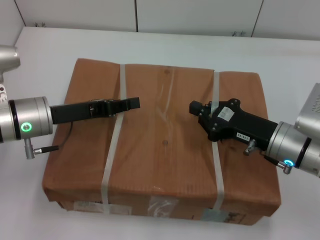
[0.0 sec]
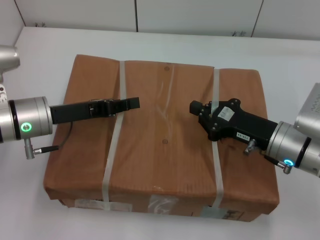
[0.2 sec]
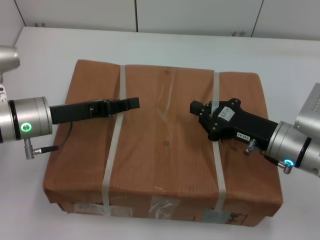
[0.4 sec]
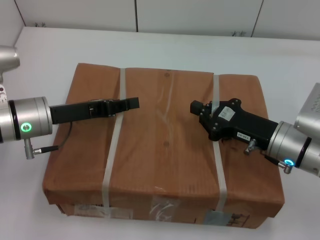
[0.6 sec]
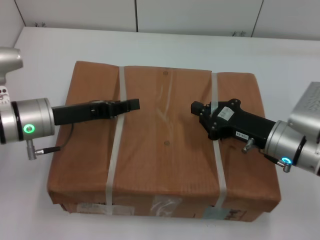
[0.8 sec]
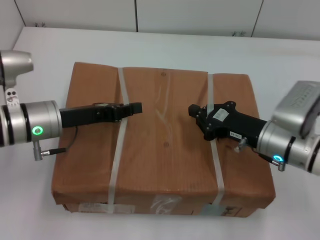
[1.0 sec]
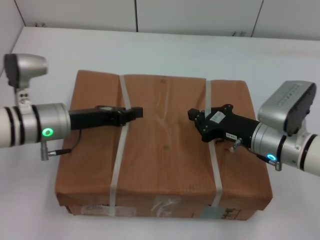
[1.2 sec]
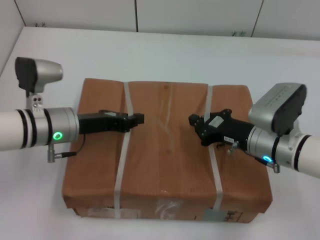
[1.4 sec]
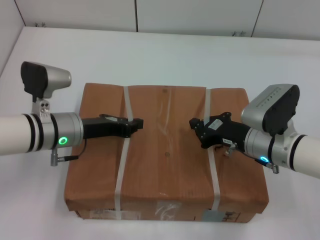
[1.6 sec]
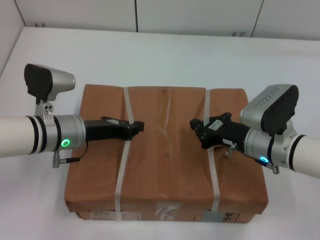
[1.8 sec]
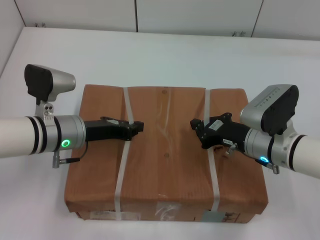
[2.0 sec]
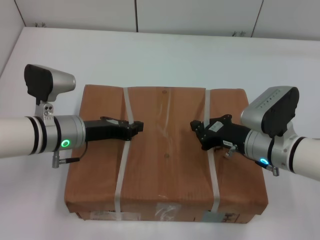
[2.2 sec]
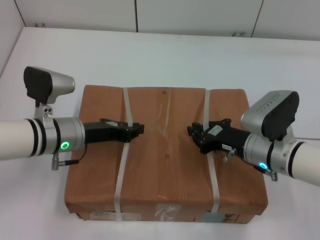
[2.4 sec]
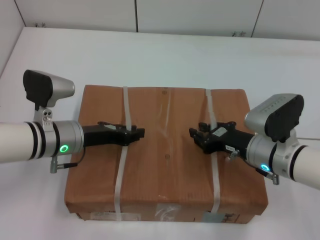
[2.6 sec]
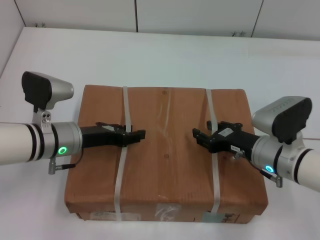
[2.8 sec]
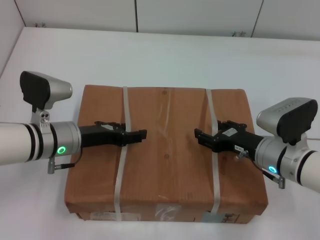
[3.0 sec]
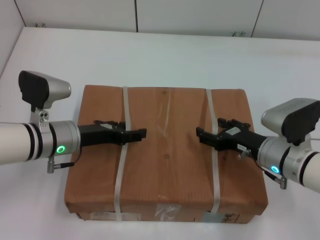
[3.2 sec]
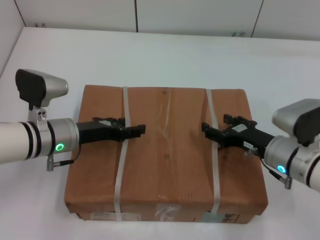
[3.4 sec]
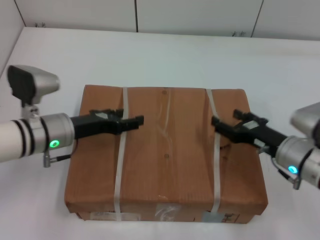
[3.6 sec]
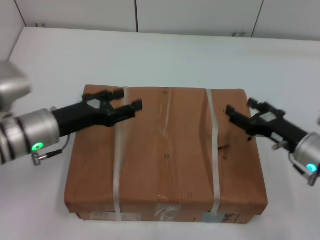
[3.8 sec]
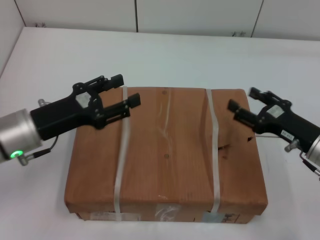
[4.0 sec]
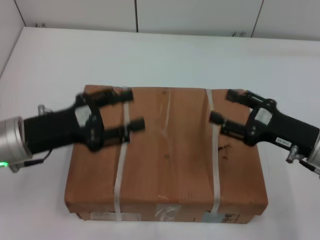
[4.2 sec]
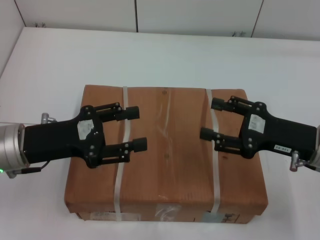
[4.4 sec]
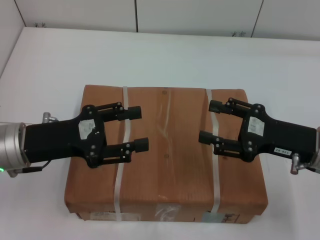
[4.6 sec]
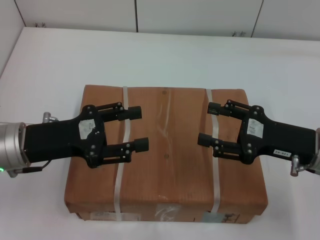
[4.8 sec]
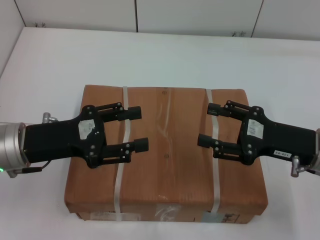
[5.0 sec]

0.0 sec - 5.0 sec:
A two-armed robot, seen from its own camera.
Task of the whole recording: place the box on the table with both arms.
Step, 0.0 sec - 1.6 sec: Place the box on the table with left gripper.
Step, 0.0 sec - 1.6 sec: Place the box on the table with right gripper.
Step, 1.8 sec - 2.6 sec: Loosen the box on the table with left gripper.
Step, 1.8 sec - 2.6 sec: Loosen the box on the table with right gripper.
0.0 sec - 1.6 sec: The left gripper moves roughly 5 cm.
1.6 sec - 3.4 sec: The right gripper opens up; the left gripper opens.
3.4 sec - 5.0 sec: The right gripper heads upward, covering roughly 10 cm, while the left gripper heads upward and backward, covering approximately 10 cm.

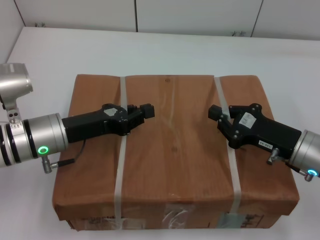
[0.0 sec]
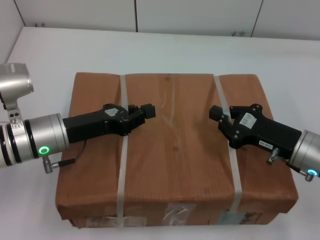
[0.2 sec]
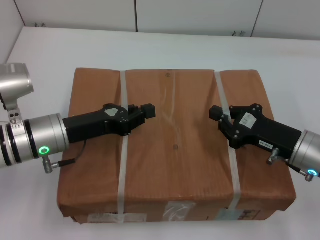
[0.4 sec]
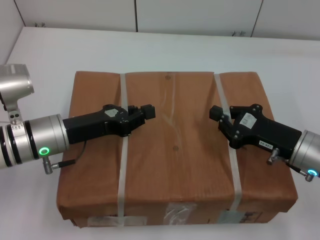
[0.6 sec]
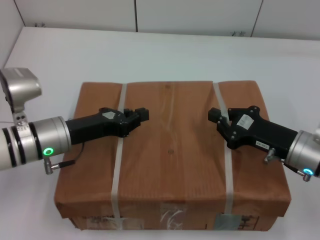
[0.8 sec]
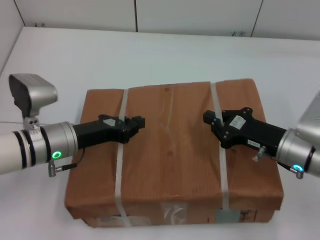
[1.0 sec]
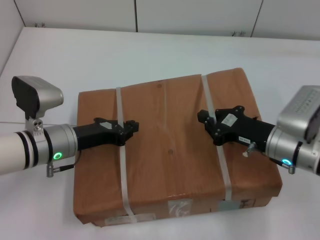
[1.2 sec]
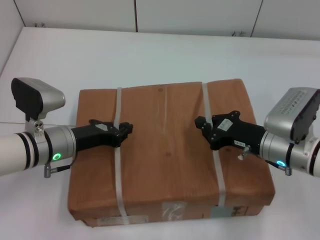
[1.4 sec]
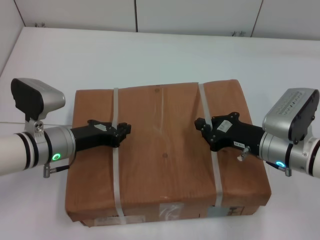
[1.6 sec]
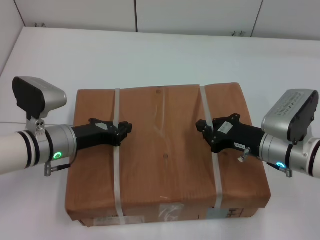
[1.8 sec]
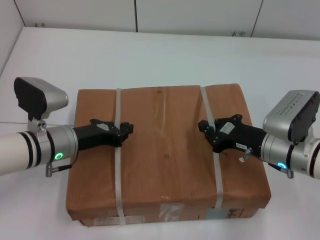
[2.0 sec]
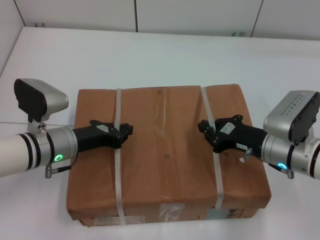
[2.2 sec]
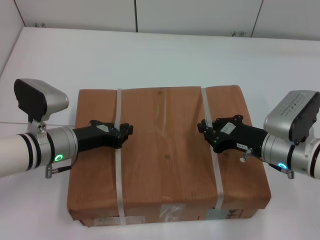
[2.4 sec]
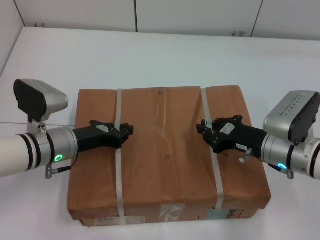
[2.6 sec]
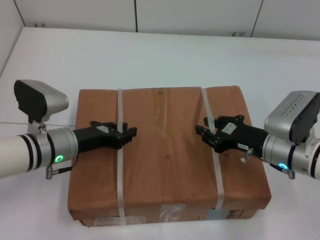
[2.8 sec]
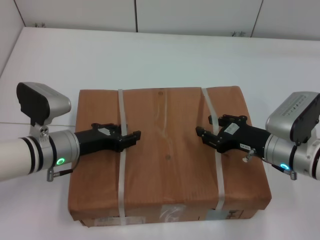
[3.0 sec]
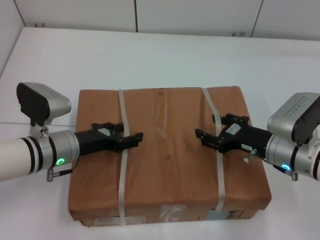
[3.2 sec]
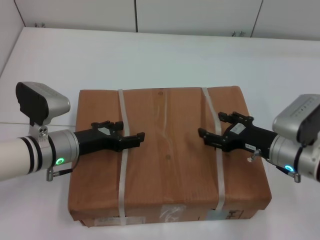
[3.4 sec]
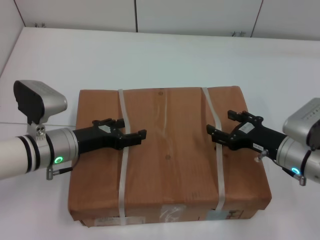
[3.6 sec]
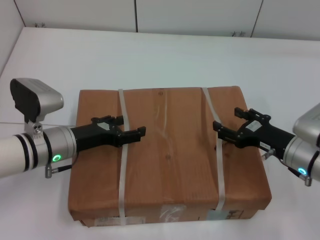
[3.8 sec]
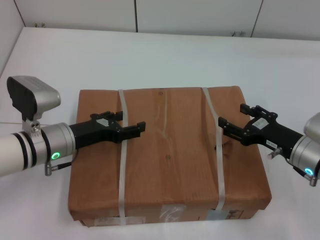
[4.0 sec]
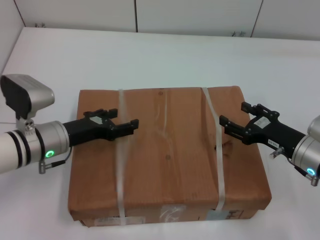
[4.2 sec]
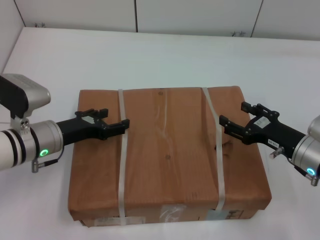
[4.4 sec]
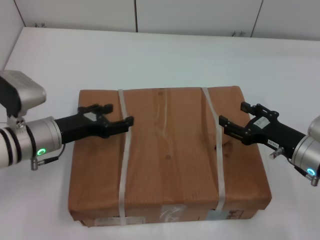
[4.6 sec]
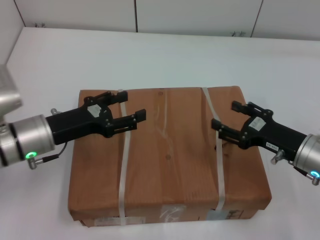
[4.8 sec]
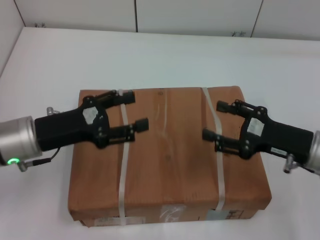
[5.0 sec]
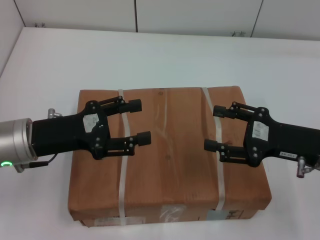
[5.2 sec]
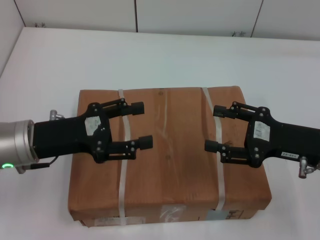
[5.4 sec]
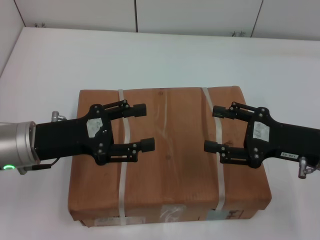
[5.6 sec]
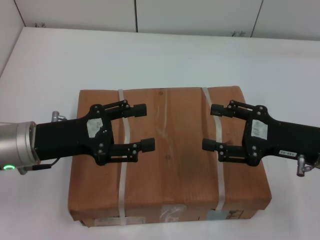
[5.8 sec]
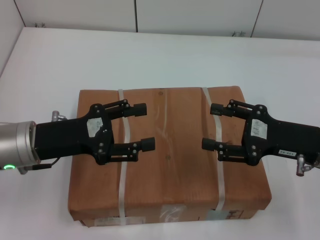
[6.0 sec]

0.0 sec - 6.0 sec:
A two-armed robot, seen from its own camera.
Task of the whole recording: place the box on the table with both arms.
Step, 0.0 sec - 1.8 sec: Place the box on the table with left gripper.
Step, 0.0 sec - 1.8 sec: Place the box on the table with right gripper.
Step, 2.0 sec - 4.2 sec: Loosen the box on the table with left gripper.
Step, 2.0 sec - 4.2 sec: Loosen the box on the table with right gripper.
1.6 sec - 3.0 sec: The left gripper opens.
3.0 sec - 4.4 sec: The left gripper opens its fingers; the right gripper opens.
4.4 sec - 6.0 sec: The two grippers go some 5 cm upward.
